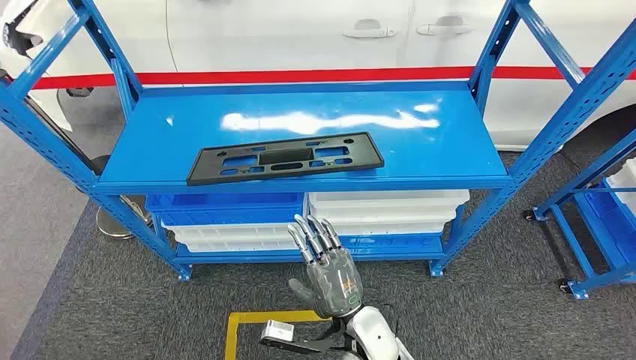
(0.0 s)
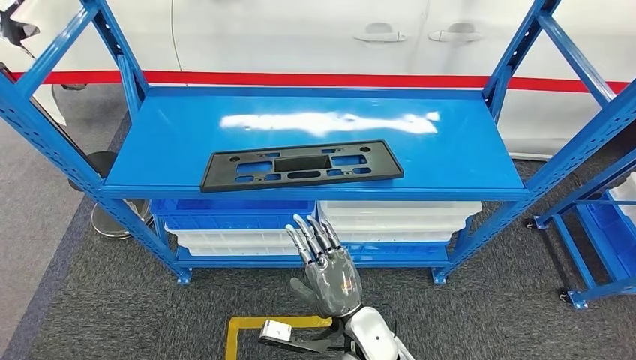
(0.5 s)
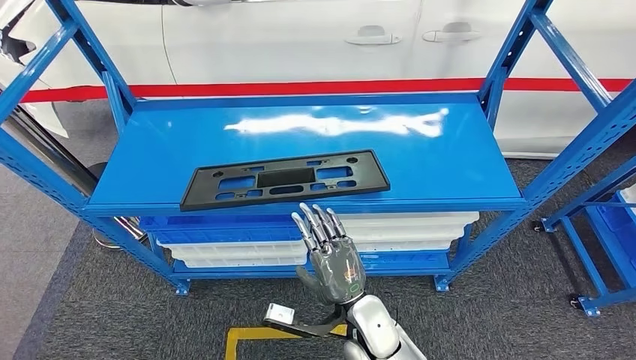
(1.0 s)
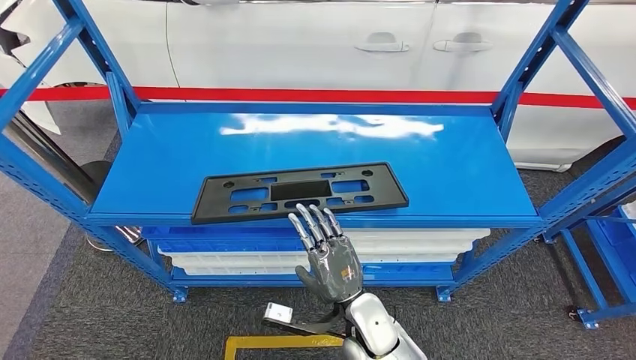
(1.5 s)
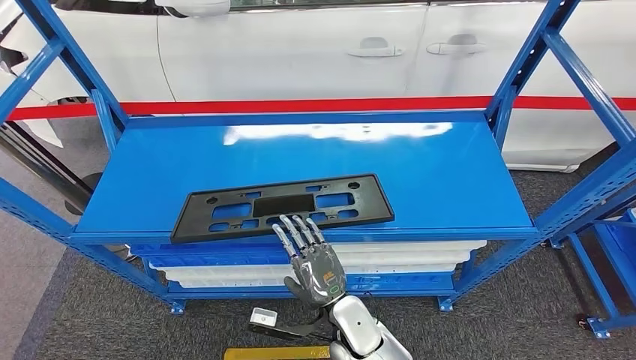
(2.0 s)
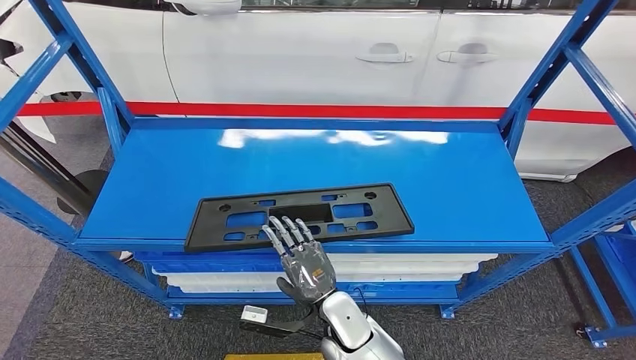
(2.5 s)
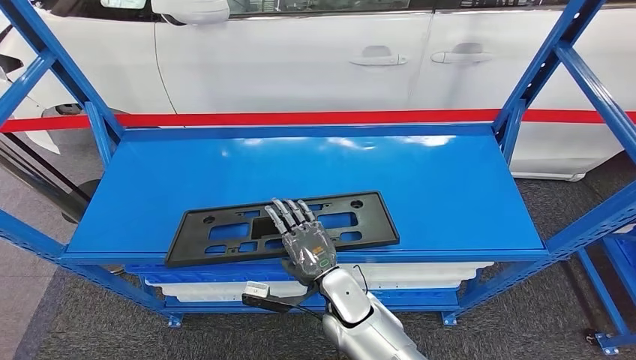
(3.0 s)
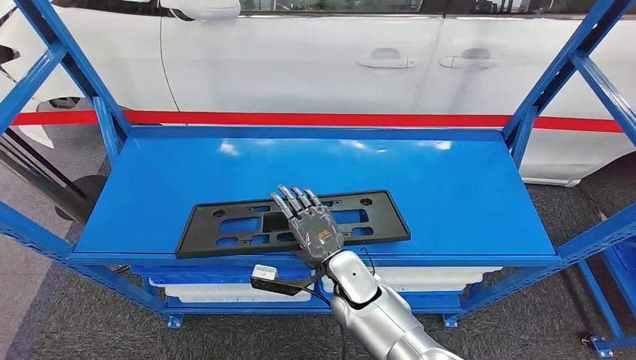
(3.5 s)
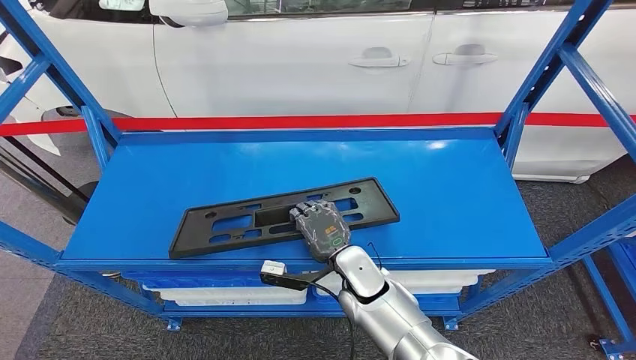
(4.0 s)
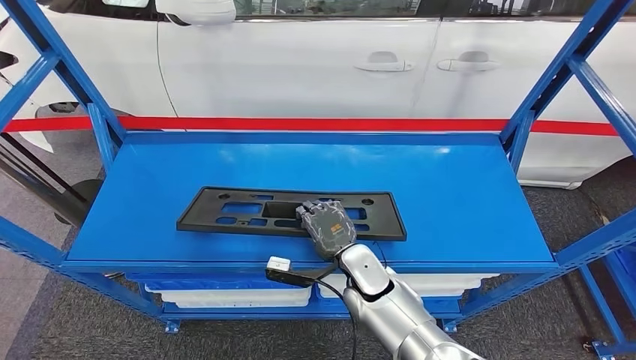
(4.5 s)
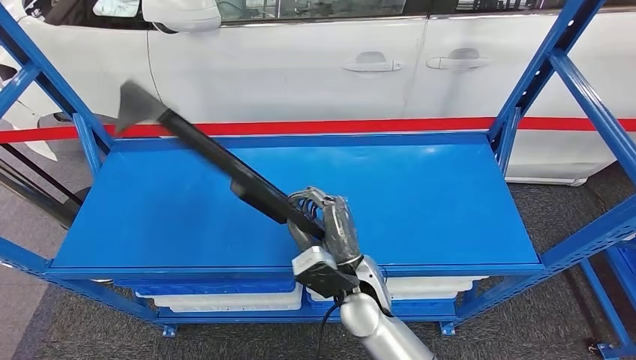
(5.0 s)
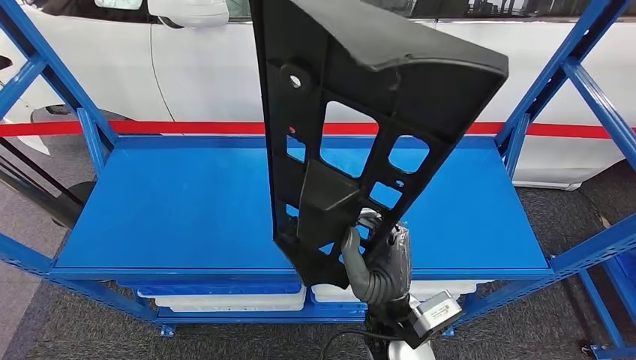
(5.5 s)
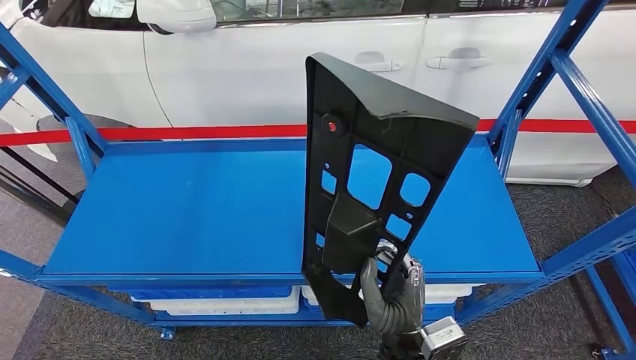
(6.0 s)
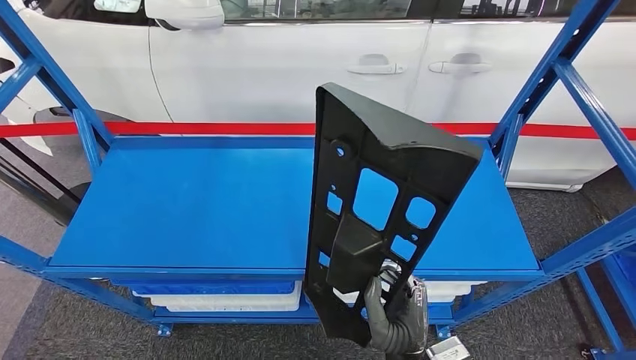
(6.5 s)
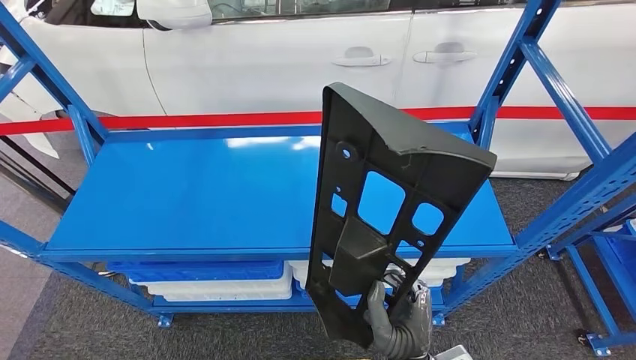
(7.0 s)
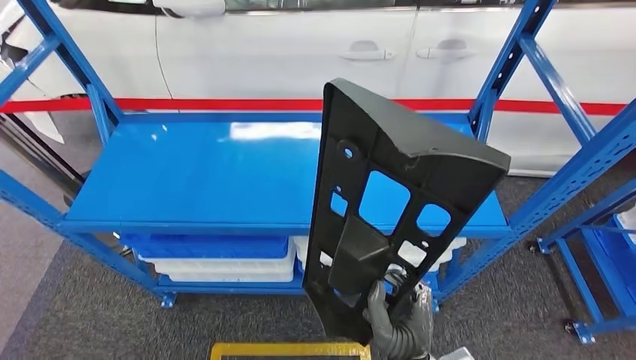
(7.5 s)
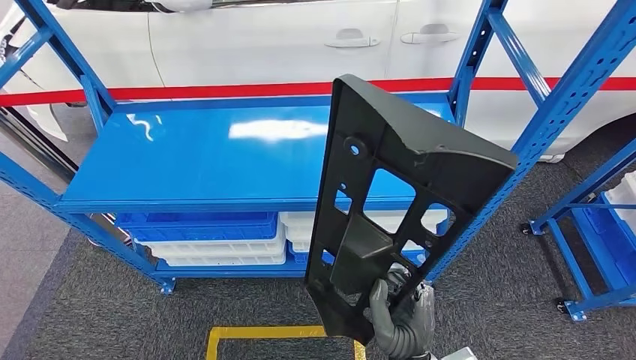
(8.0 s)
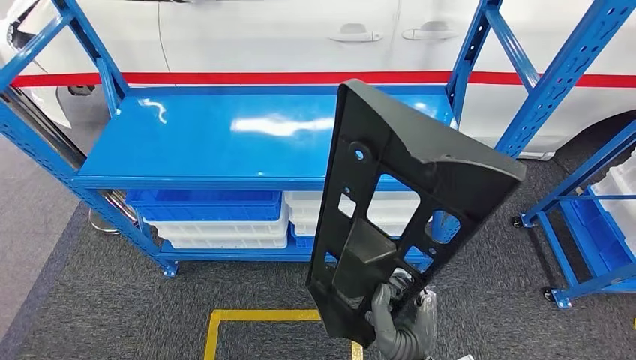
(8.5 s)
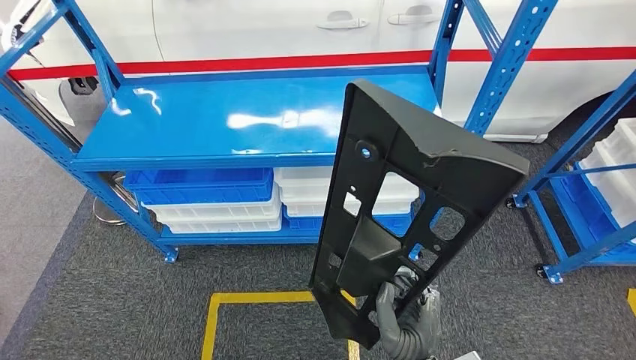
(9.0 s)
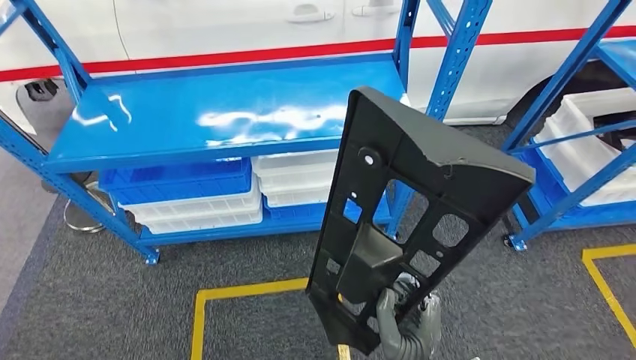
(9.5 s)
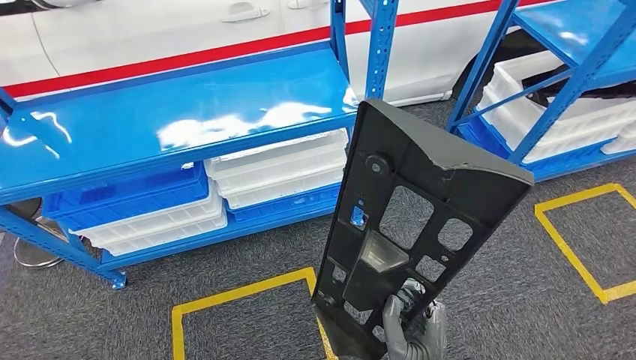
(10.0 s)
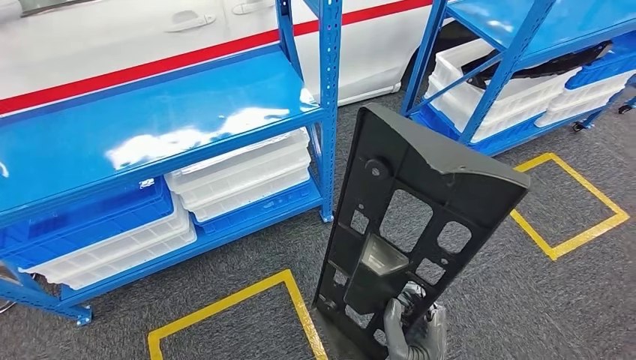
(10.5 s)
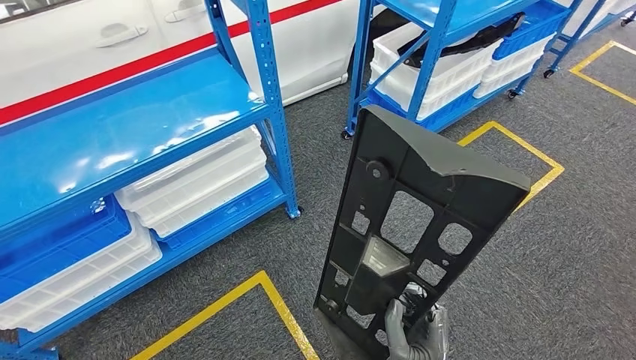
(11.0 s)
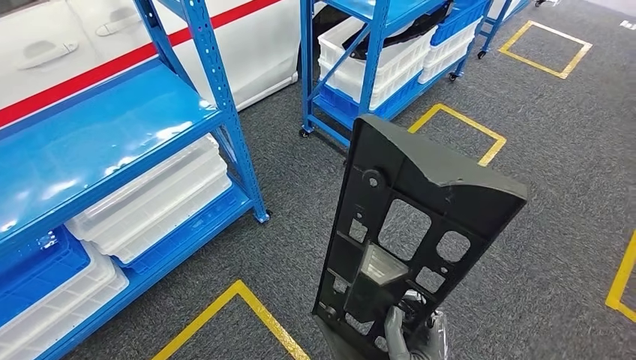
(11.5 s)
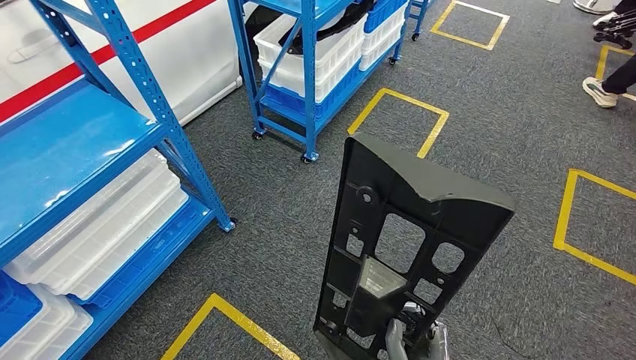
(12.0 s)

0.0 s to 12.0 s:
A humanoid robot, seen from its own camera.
Step, 0.0 to 9.0 s: Pick up the large material from the shelf.

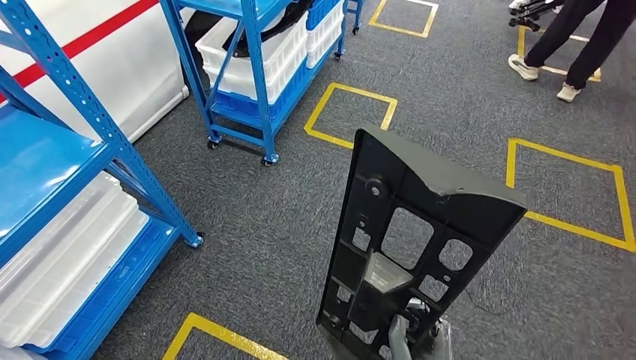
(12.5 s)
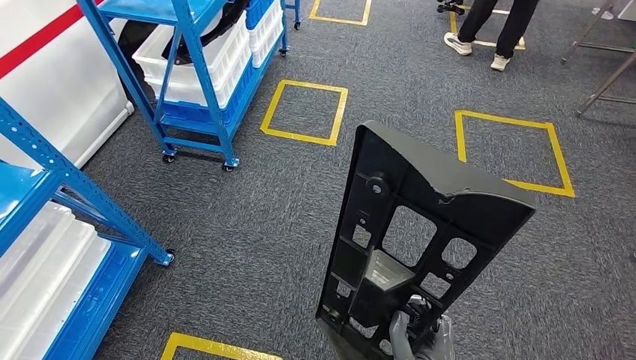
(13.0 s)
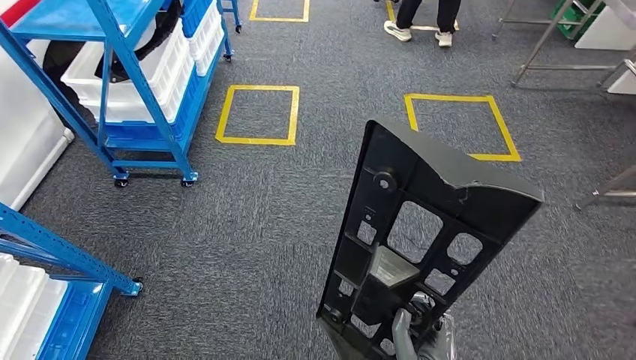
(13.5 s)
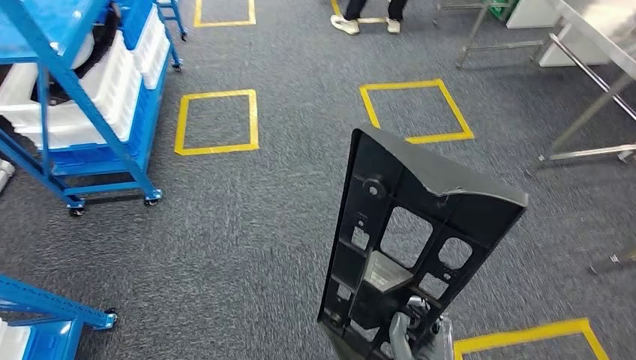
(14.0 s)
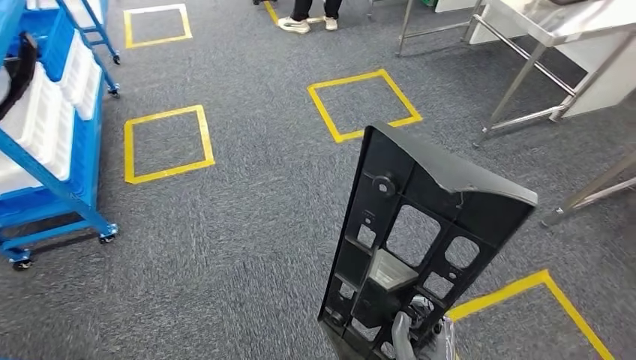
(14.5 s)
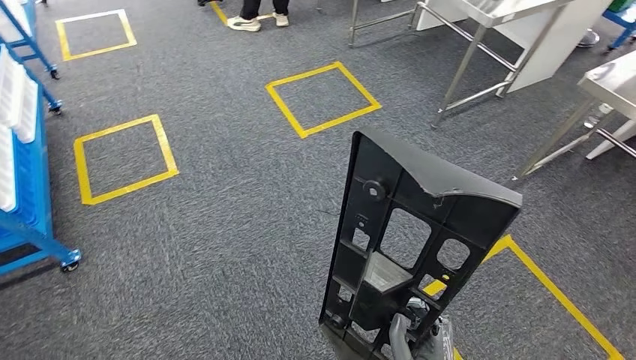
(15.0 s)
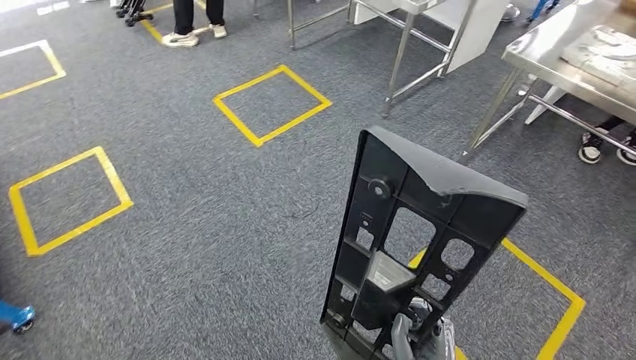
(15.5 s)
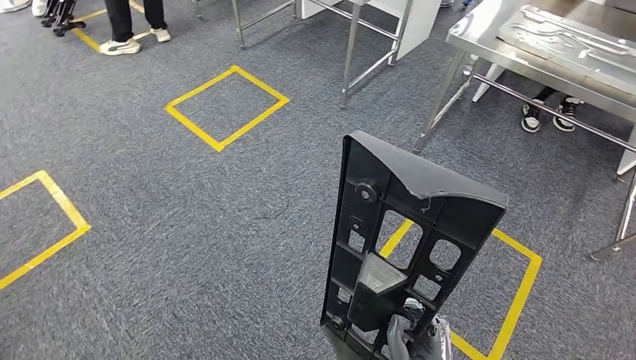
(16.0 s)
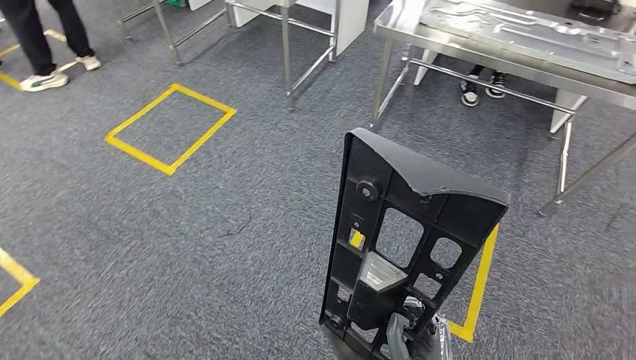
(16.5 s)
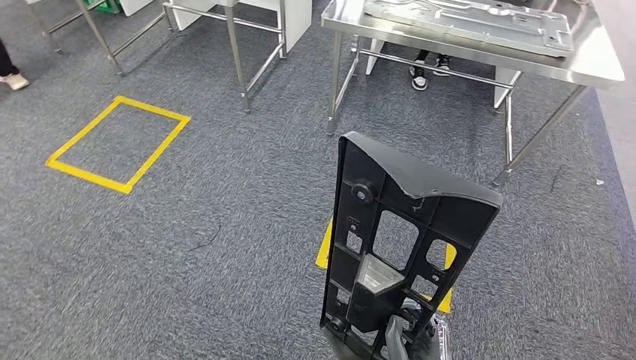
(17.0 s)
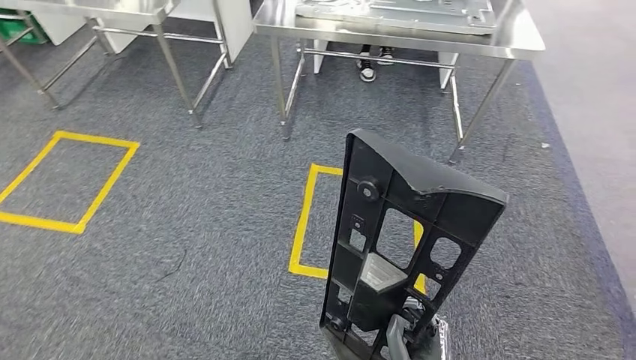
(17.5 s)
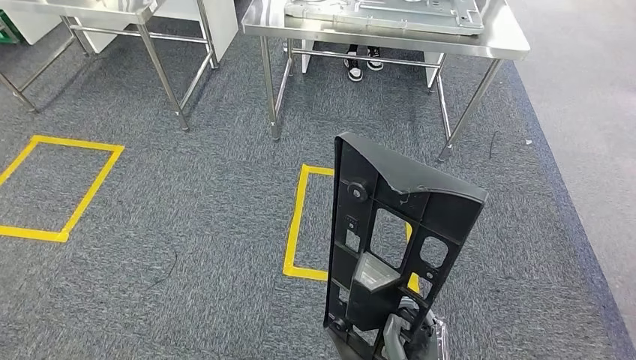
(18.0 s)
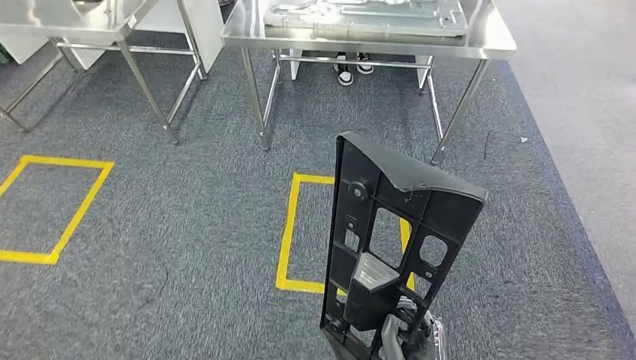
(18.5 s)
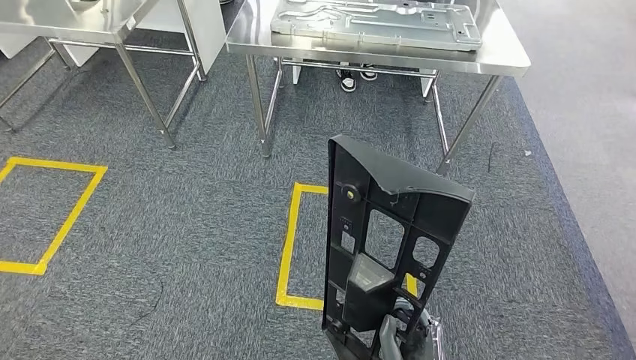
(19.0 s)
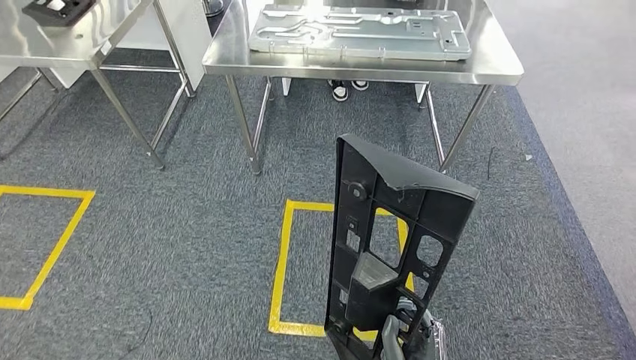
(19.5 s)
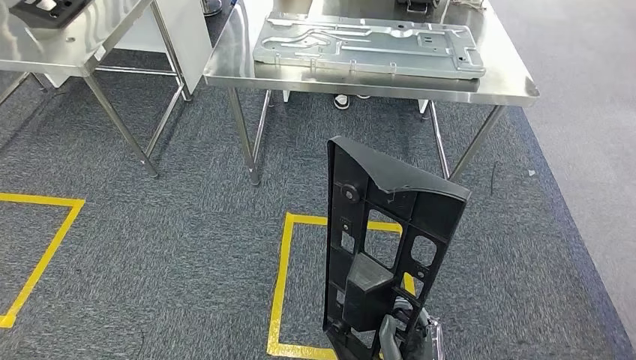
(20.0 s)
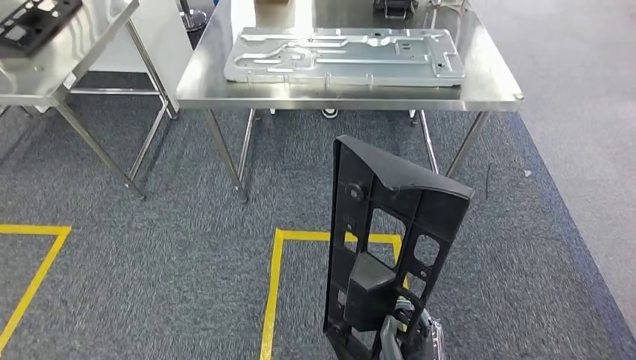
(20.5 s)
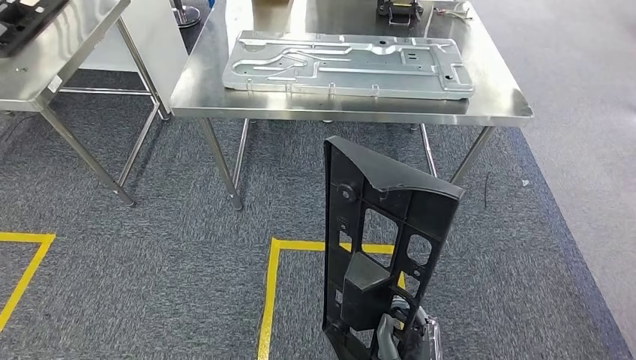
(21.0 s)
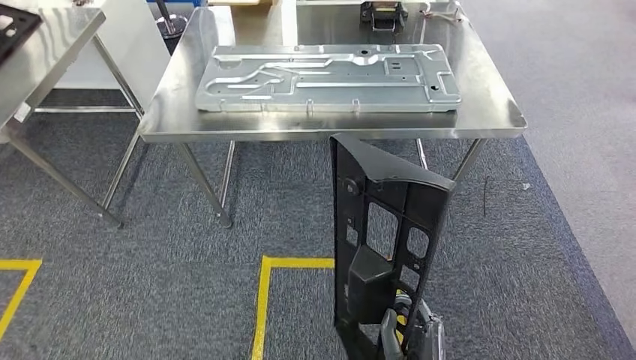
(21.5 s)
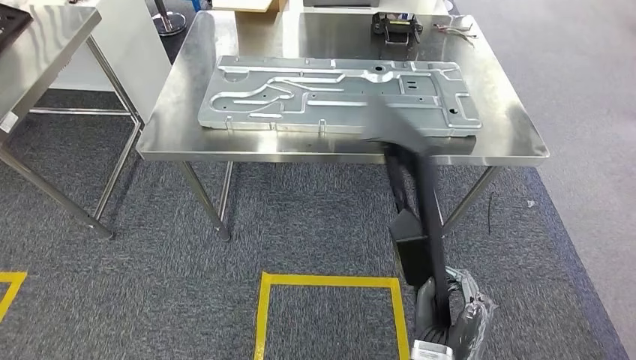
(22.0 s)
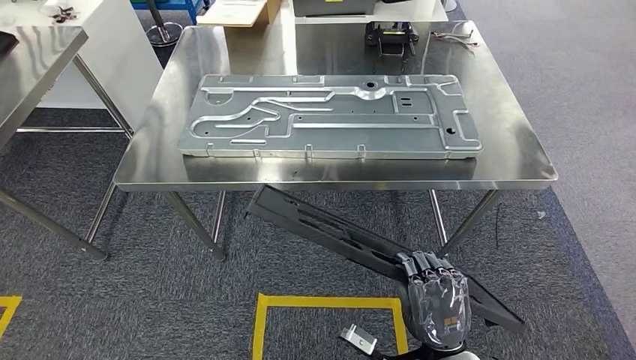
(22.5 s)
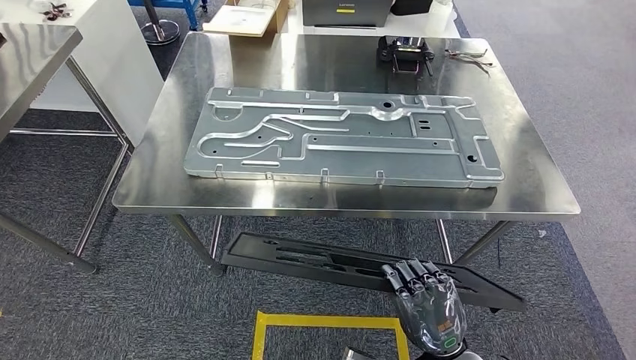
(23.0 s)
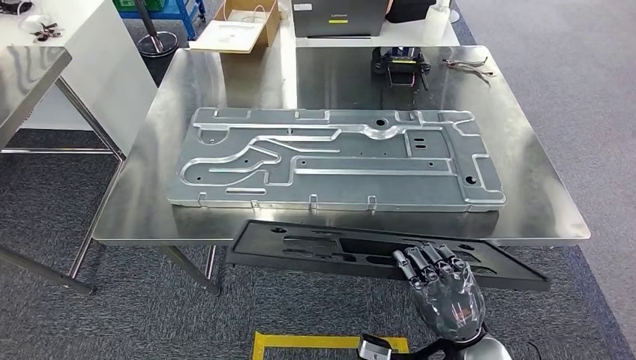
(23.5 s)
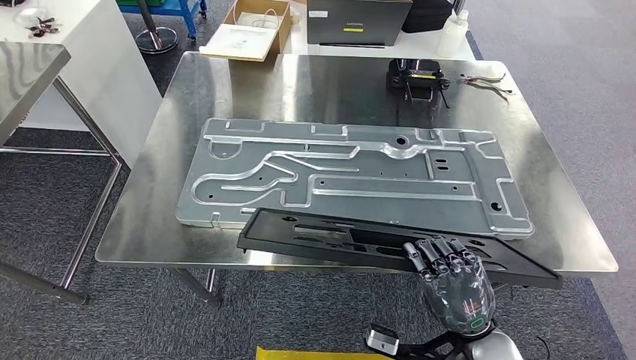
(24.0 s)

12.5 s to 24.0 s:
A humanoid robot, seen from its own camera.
Step, 12.5 to 22.0 s: Move the large material to the workbench.
